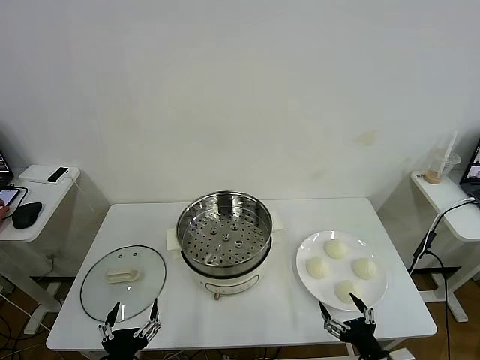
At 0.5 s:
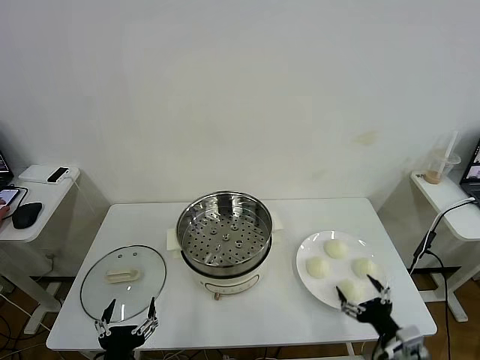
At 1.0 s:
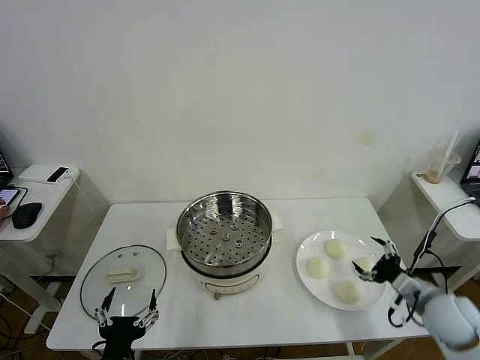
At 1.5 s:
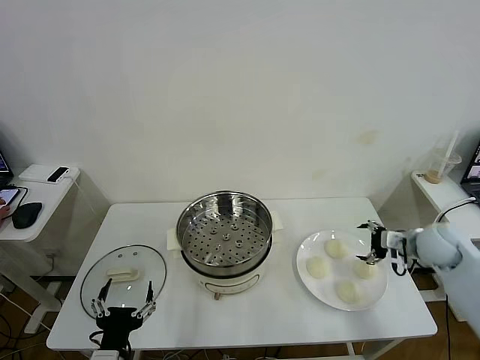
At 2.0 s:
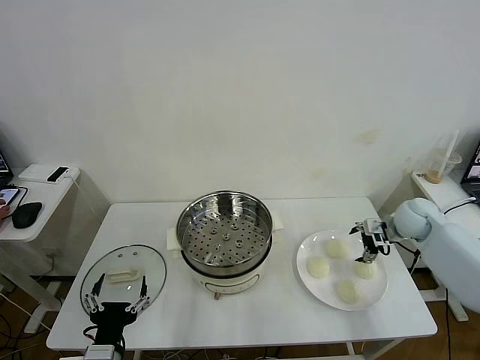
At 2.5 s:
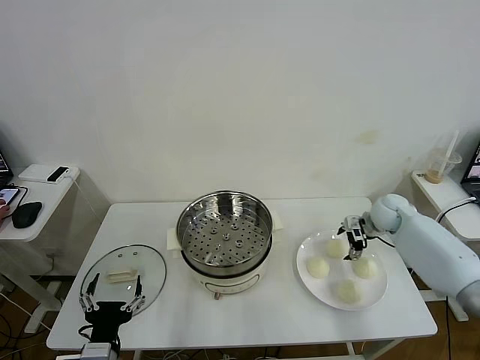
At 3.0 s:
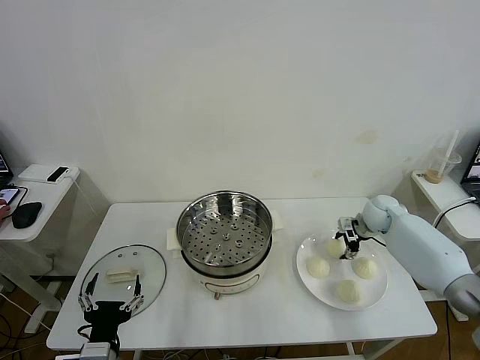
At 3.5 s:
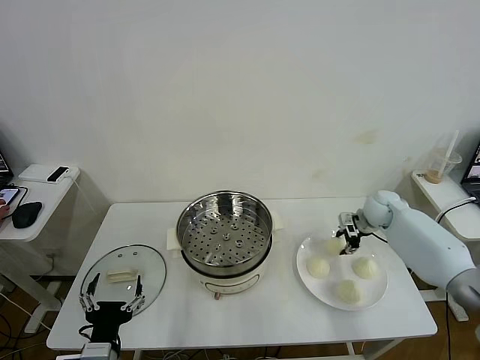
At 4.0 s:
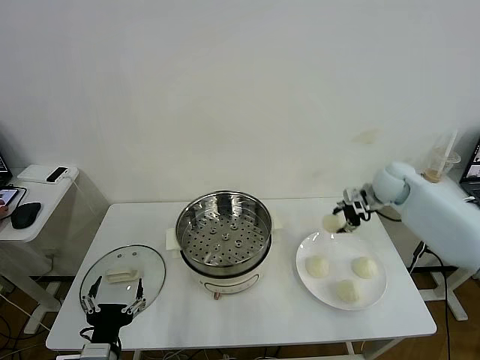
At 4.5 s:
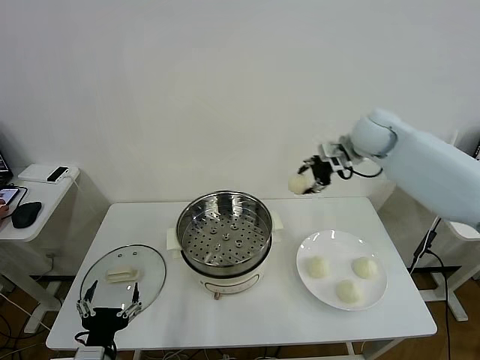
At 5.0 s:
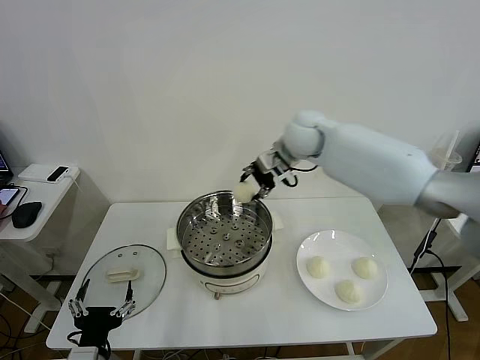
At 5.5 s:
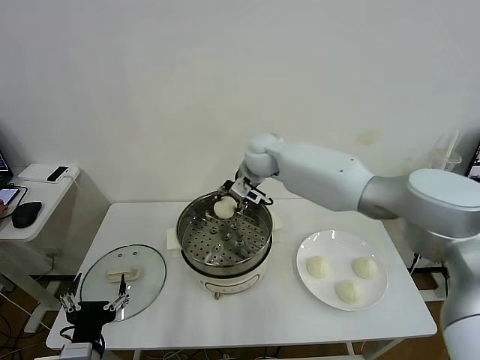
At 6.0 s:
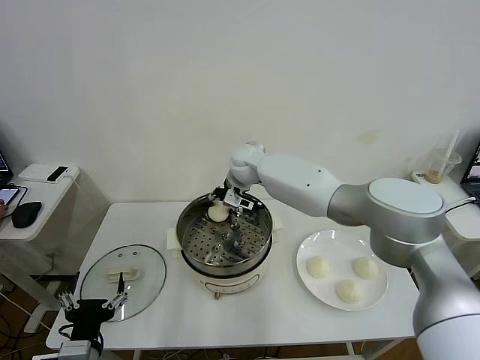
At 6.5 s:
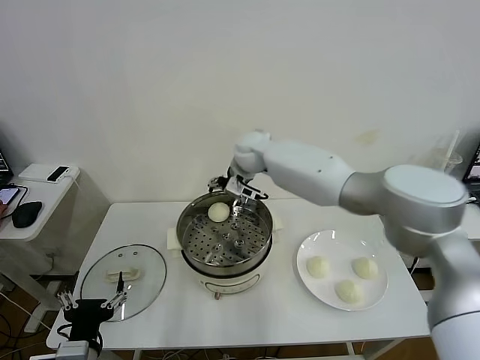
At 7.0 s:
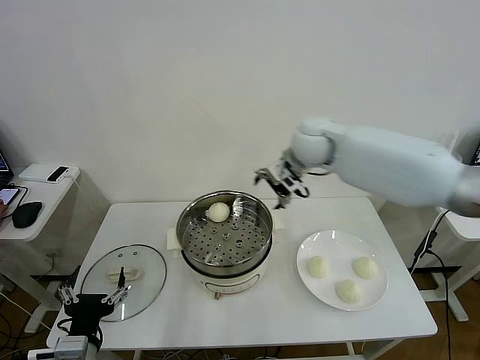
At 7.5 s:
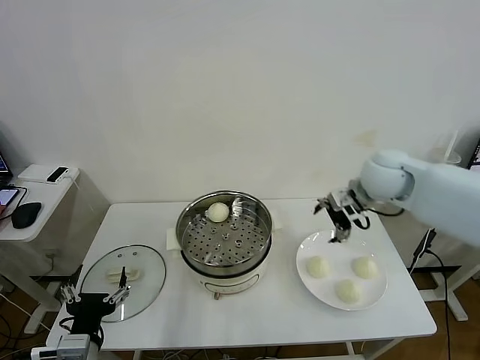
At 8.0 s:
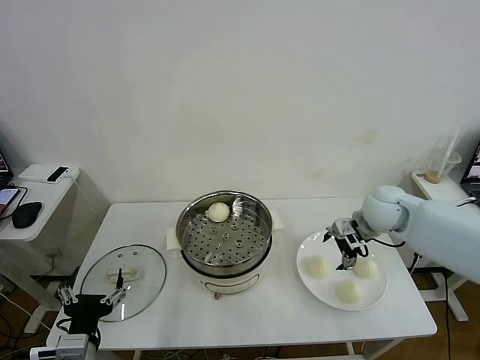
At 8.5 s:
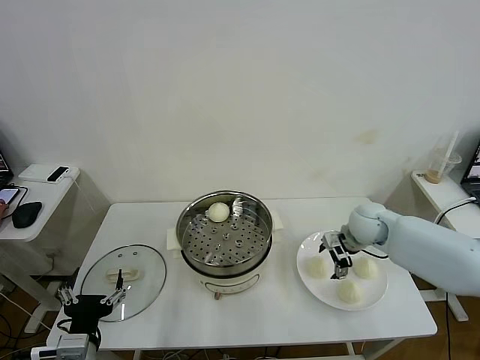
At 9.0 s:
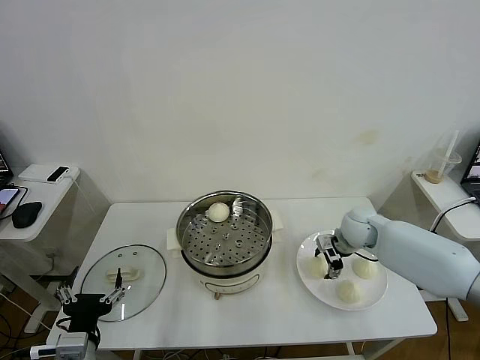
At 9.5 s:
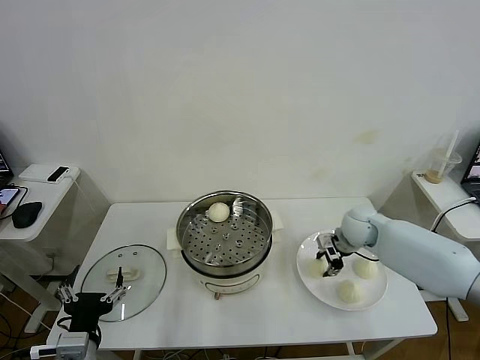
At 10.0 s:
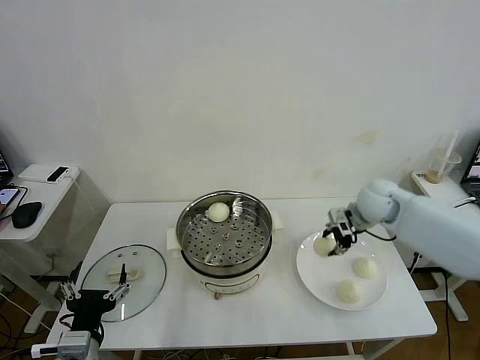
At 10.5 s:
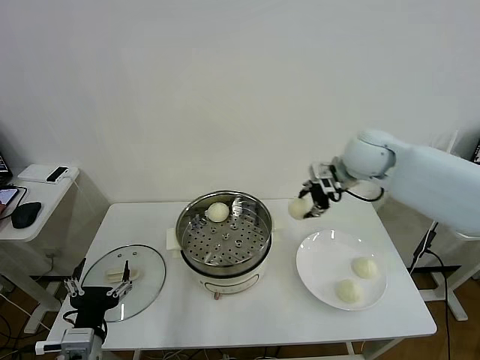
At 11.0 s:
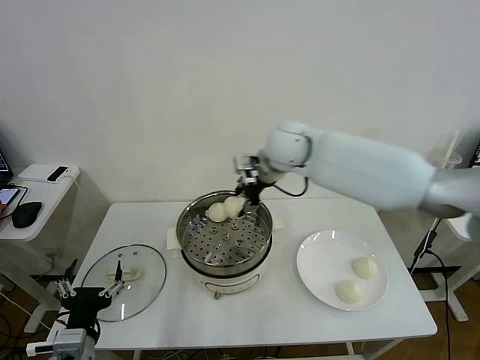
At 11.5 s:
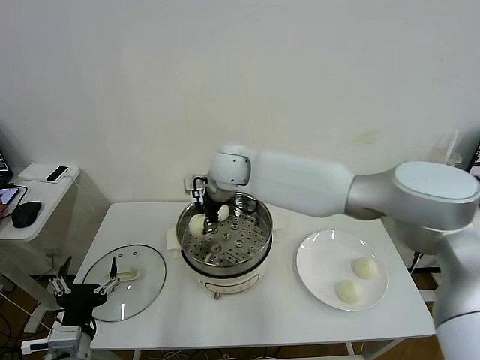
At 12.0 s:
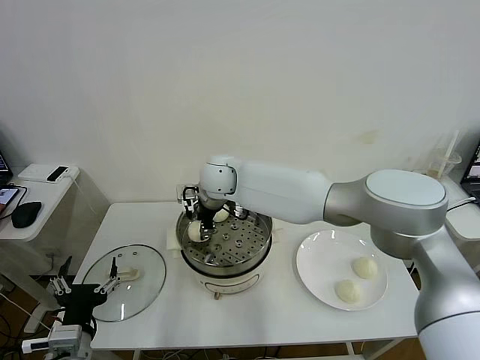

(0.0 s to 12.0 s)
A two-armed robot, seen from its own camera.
Task of the whole recording: take steamed baozi put them in steamer then cover it.
Step, 0.0 s - 3.0 s: Grasp the baozi in the plate with right gripper.
Step, 3.5 s - 6.0 s: Place the baozi on the steamer with right gripper.
Step, 6.5 s - 9.0 s: Grasp the baozi in the plate with right gripper.
2.0 s - 4.0 s: The right gripper is displaced upward and to the left by about 15 cm, and closes.
4.0 s - 6.0 s: The right gripper moves to the left, approximately 35 cm, and opens up.
6.0 s - 8.0 s: The right gripper heads to the right and backward, covering roughly 35 cm, and opens its fingers.
8.0 s - 10.0 s: The right gripper shifts by approximately 5 cm, and closes.
10.0 s - 12.0 s: The right gripper shifts roughly 35 cm to the left, and opens up.

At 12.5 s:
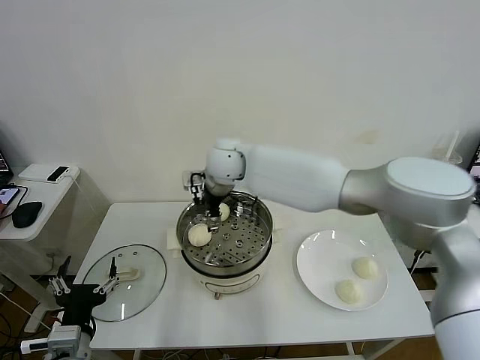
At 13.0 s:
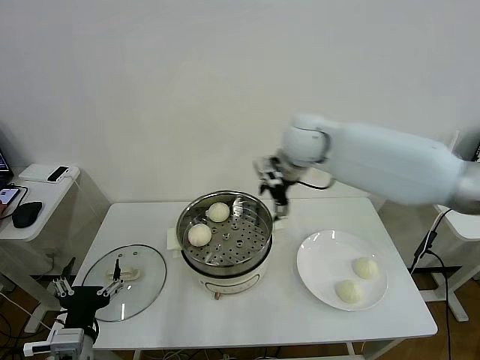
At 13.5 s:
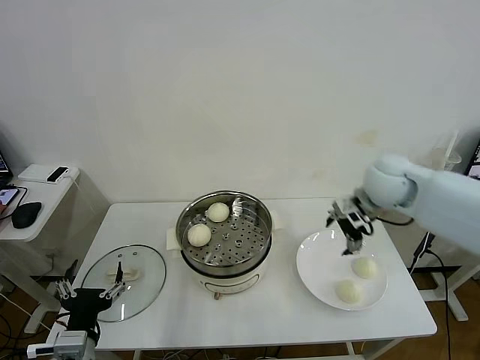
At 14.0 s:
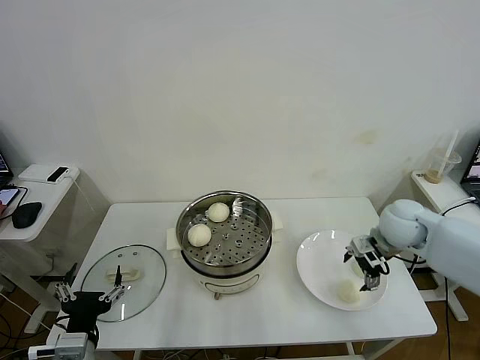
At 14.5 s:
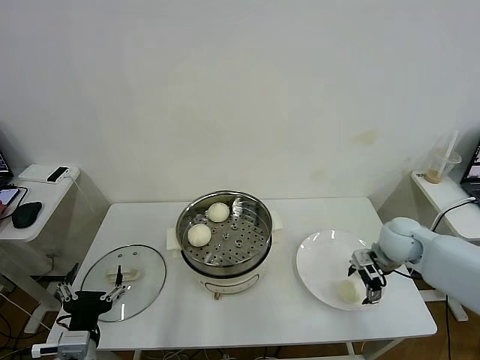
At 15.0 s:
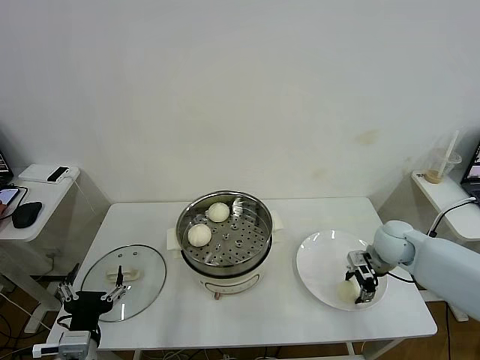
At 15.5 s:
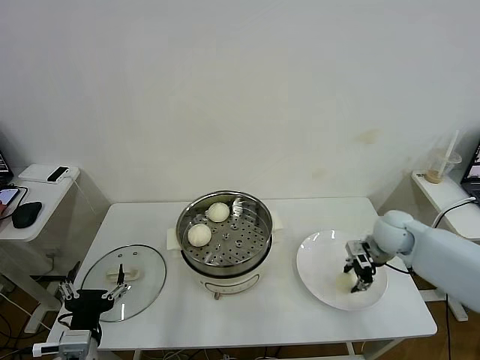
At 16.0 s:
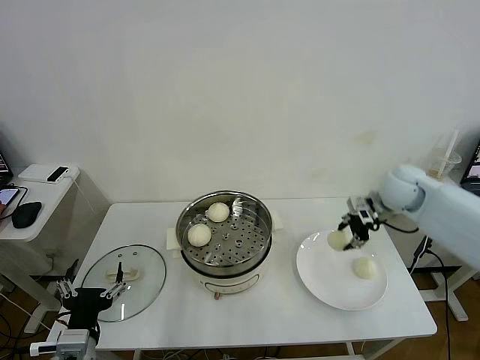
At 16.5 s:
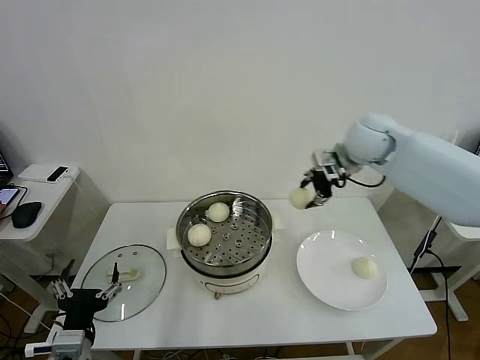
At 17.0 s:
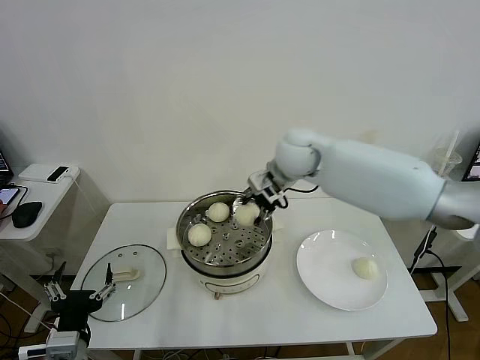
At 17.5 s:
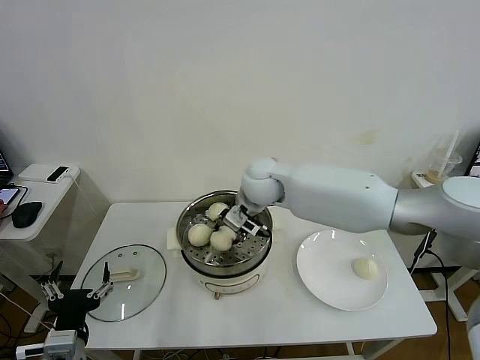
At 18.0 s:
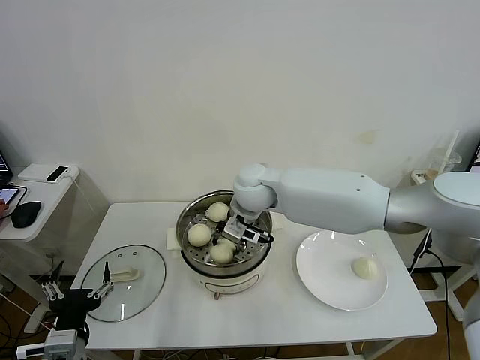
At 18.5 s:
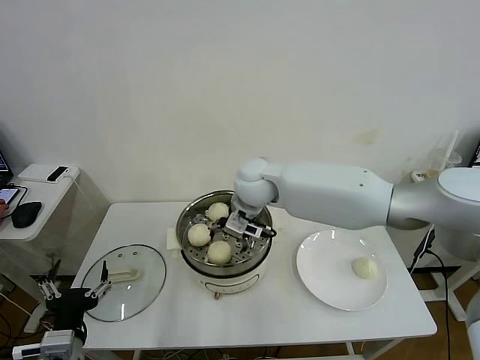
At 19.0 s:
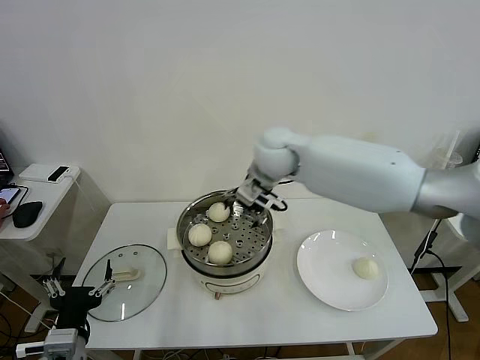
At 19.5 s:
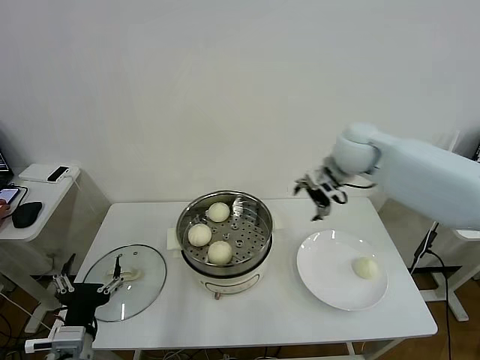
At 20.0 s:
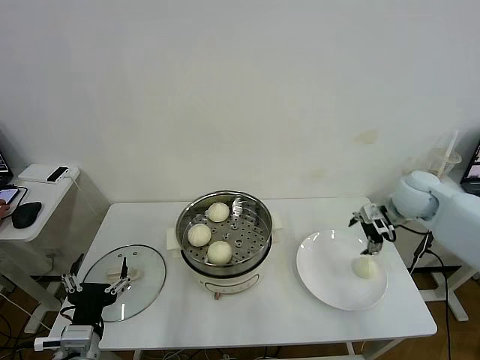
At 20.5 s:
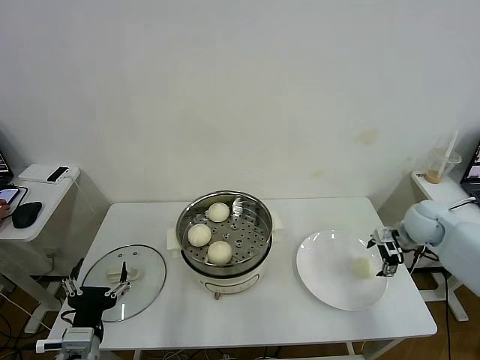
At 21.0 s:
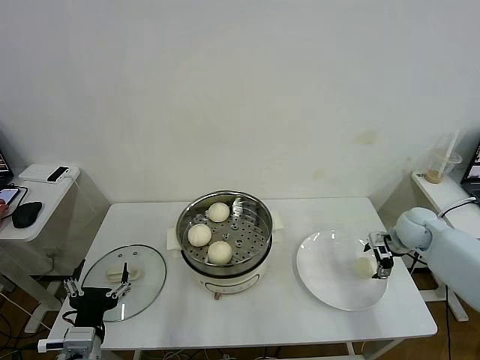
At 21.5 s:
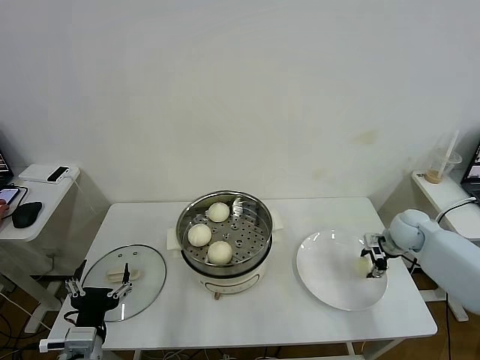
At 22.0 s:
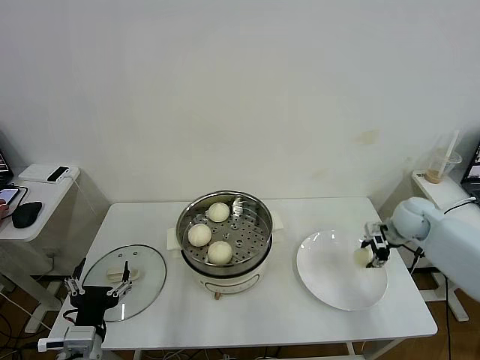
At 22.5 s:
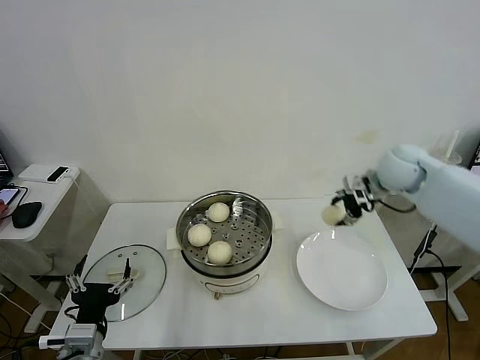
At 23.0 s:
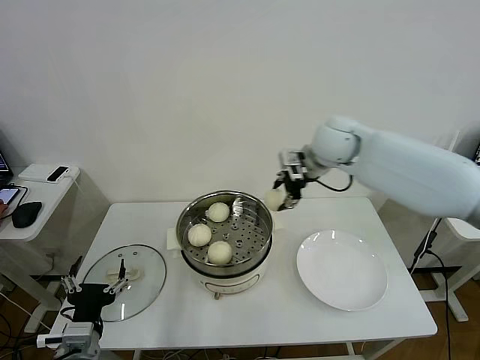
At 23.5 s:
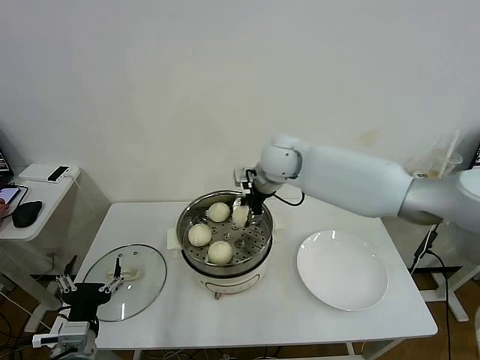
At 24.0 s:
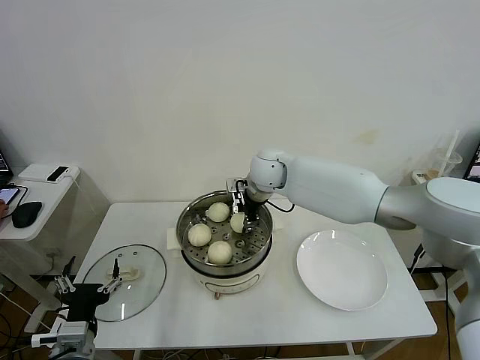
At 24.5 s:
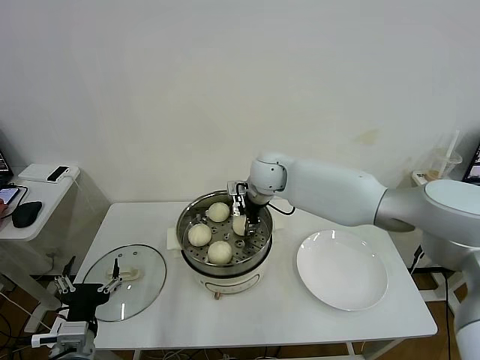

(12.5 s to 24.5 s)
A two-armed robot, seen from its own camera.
Task of the whole recording: take steamed baozi put them in steamer then cover it.
Step, 12.5 s - 15.0 s: Grasp the baozi in the plate with right gripper.
Step, 15.5 s - 18.5 s: Place the baozi on the steamer with right gripper.
Step, 19.0 s - 21.5 s: Grasp the baozi in the plate with right gripper.
12.5 s - 14.5 s: The right gripper shifts some 40 cm to the right and downward.
14.5 s - 16.5 s: The right gripper shifts approximately 25 cm upward, to the left and forward, and closes its fingers.
16.5 s - 18.5 s: The right gripper goes about 20 cm to the left, and opens up.
18.5 s - 20.5 s: The right gripper goes roughly 40 cm to the right.
20.5 s - 22.5 s: The right gripper goes roughly 15 cm upward and to the left, and closes up.
22.5 s - 24.5 s: The right gripper is displaced to the left by some 25 cm.

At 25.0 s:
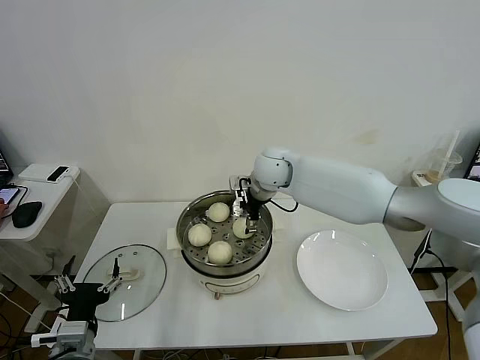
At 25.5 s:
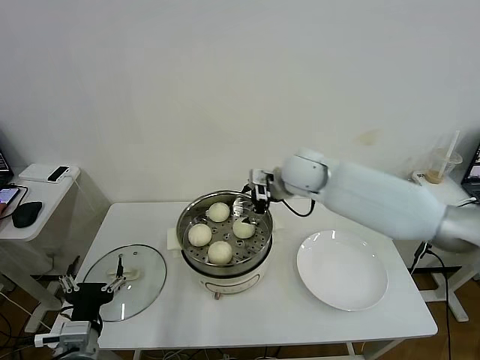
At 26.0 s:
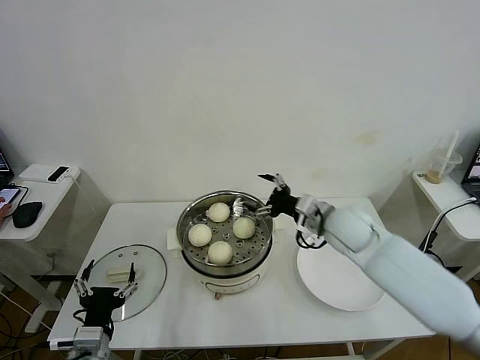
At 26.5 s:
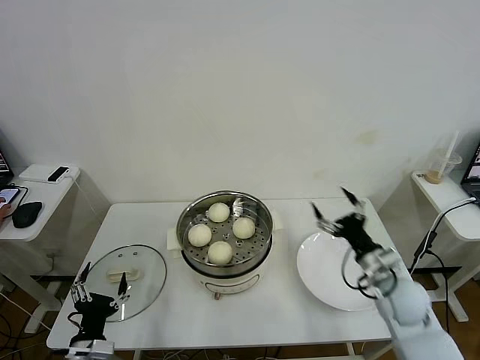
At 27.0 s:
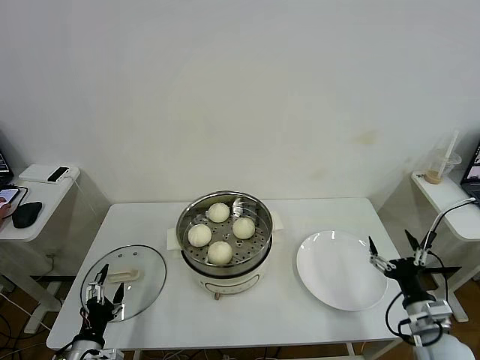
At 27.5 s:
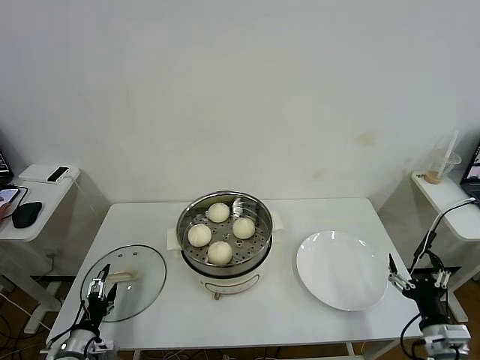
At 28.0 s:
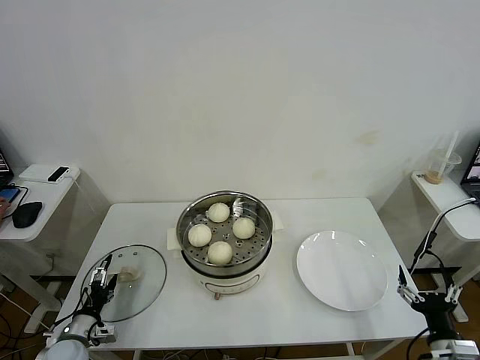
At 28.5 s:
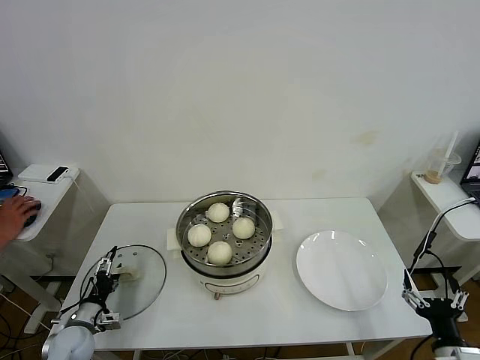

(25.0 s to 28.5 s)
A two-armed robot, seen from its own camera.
Task of the whole recording: take steamed baozi put them in steamer then cover it.
25.0 s - 27.0 s: The right gripper heads backward, to the right and downward, covering some 50 cm. The left gripper goes roughly 15 cm downward and to the left.
27.0 s - 28.5 s: The right gripper moves backward, approximately 10 cm, while the left gripper heads forward, to the left and downward, covering some 15 cm.
